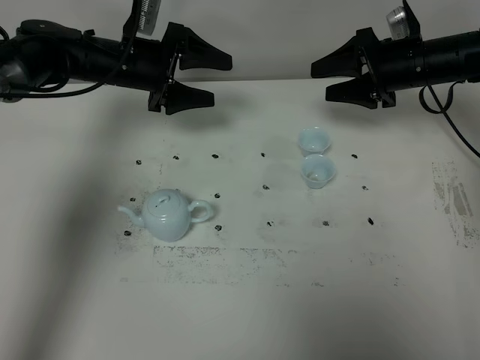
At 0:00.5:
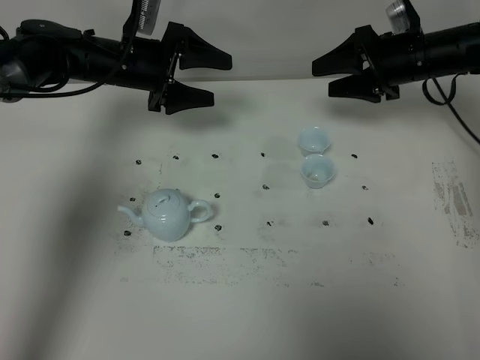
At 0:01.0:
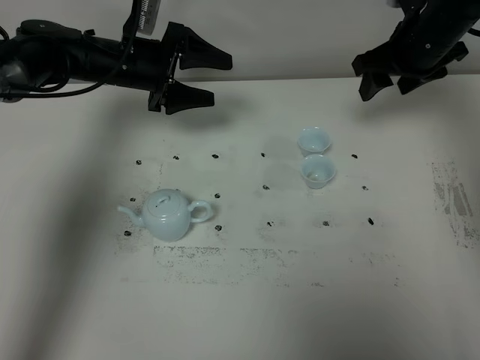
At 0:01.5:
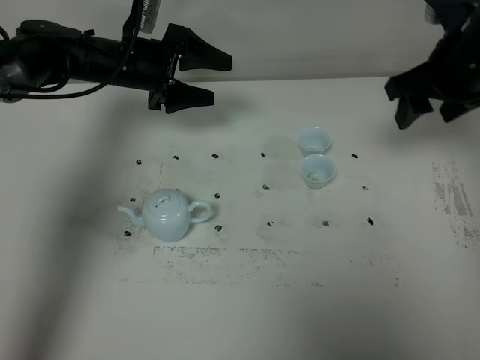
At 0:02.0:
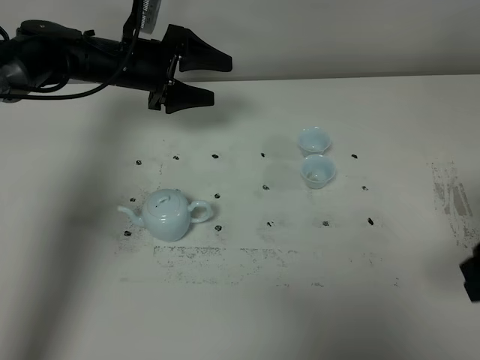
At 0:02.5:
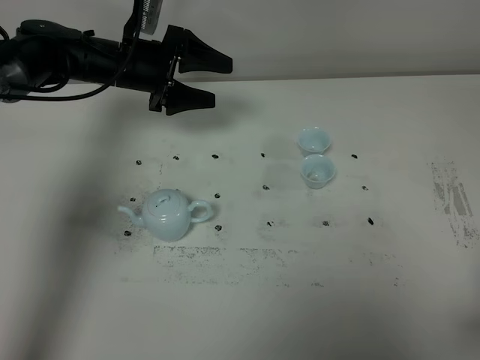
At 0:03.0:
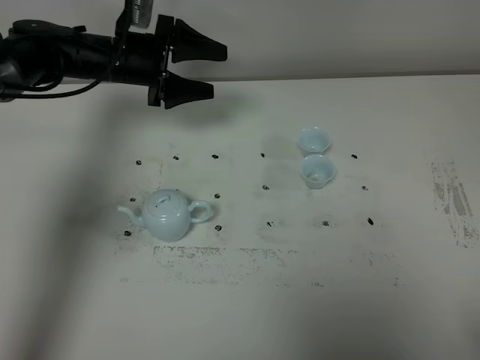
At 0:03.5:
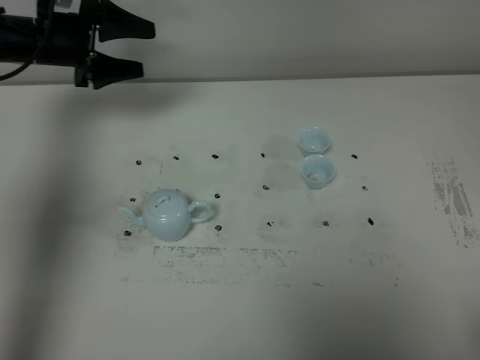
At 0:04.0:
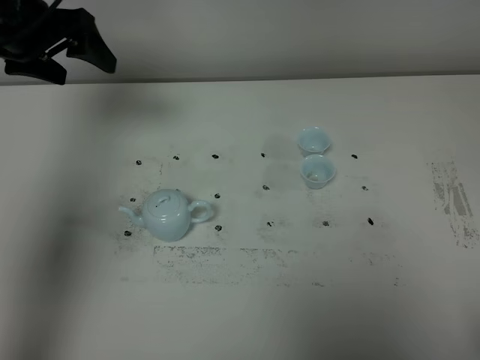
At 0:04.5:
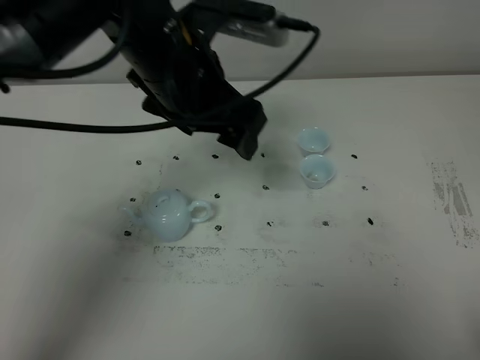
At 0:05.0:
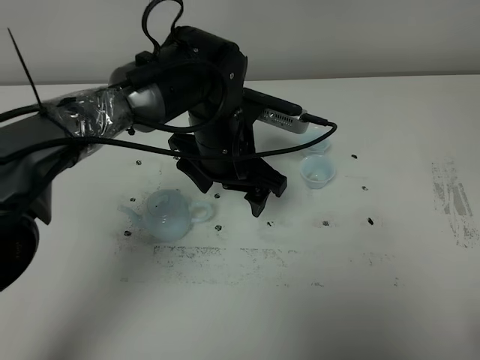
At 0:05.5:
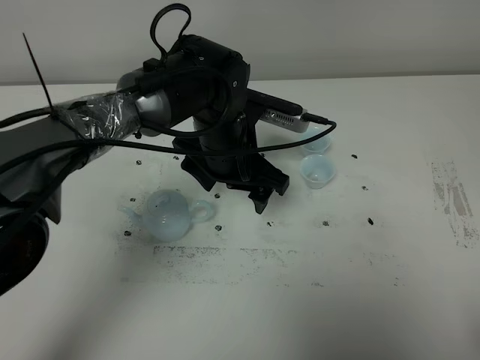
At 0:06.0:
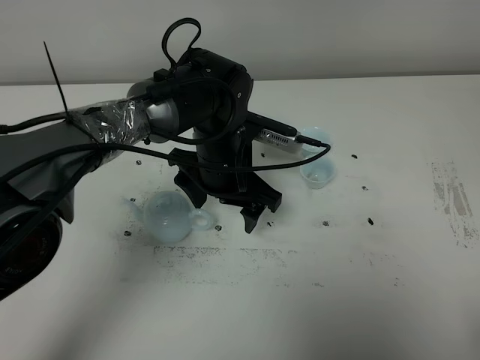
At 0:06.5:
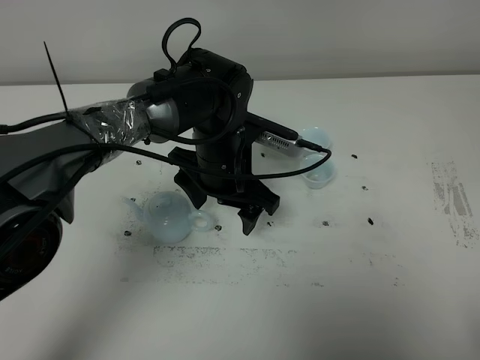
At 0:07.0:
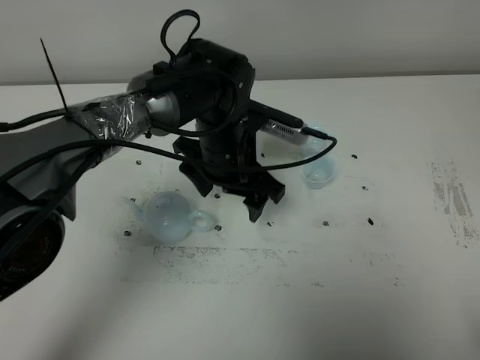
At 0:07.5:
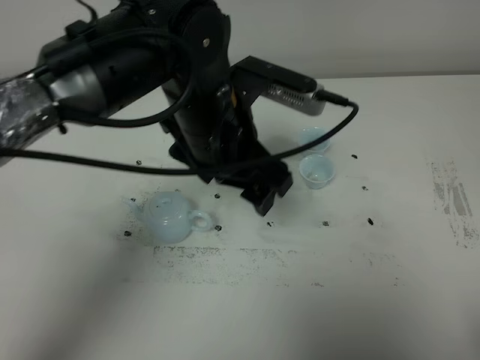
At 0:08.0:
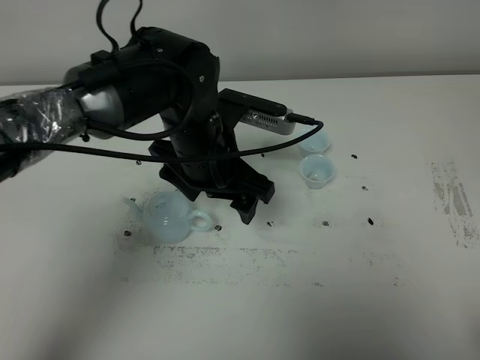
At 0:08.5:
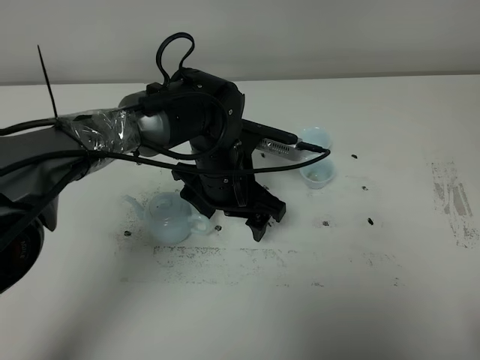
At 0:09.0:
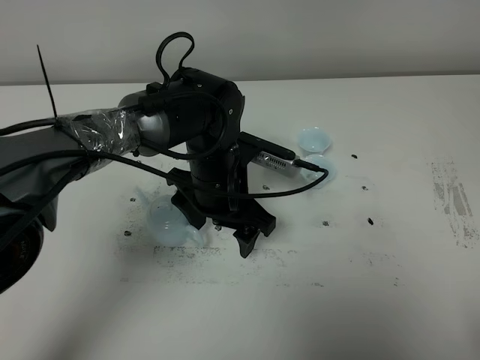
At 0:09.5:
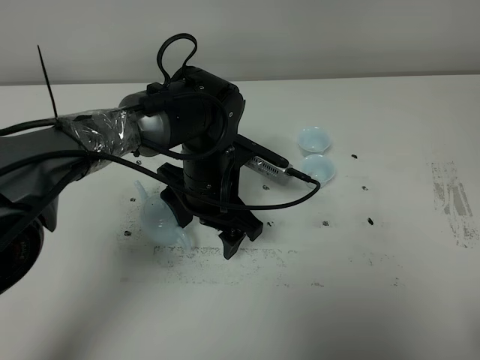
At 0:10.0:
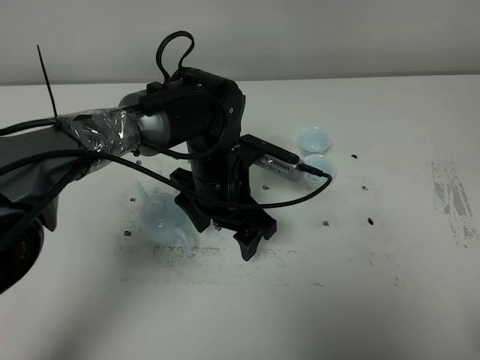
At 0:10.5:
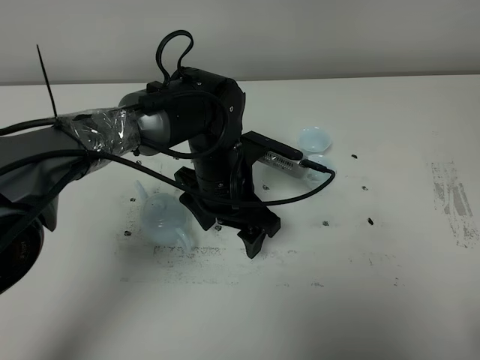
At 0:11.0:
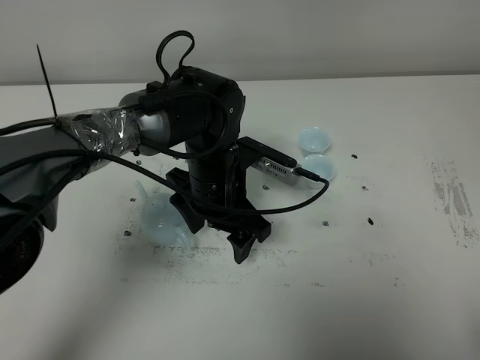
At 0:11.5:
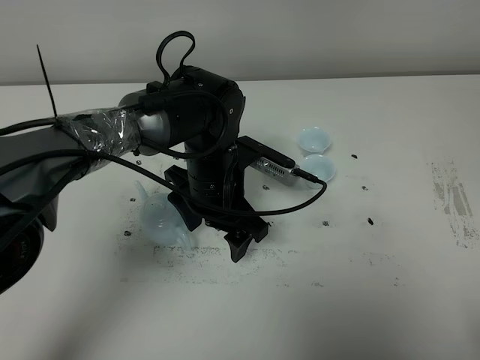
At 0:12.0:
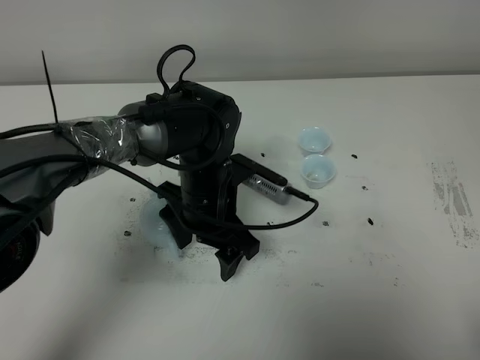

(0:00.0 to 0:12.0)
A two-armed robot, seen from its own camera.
Task of the whole recording: grasp the blue porcelain teapot and pour the tea into the two blue porcelain teacups one by one, put the blue porcelain teapot back in its original place.
0:00.0 - 0:02.0: The right gripper travels backward by about 30 cm.
0:02.0 - 0:04.0: The right gripper travels backward by about 20 cm. Meanwhile the left gripper travels upward, to the left and backward by roughly 15 cm.
0:04.0 - 0:06.0: The left gripper shifts approximately 30 cm to the right and downward.
0:06.0 - 0:08.0: The left gripper is displaced upward by approximately 5 cm.
0:08.0 - 0:10.0: The left gripper shifts roughly 5 cm downward.
0:10.0 - 0:12.0: The grippers make only small movements.

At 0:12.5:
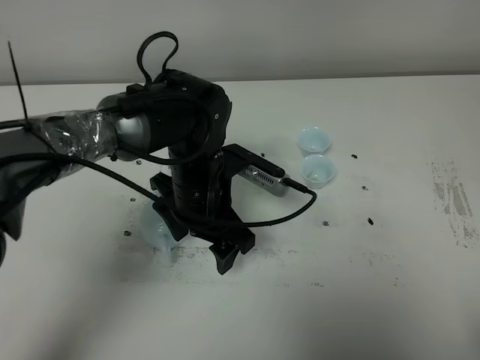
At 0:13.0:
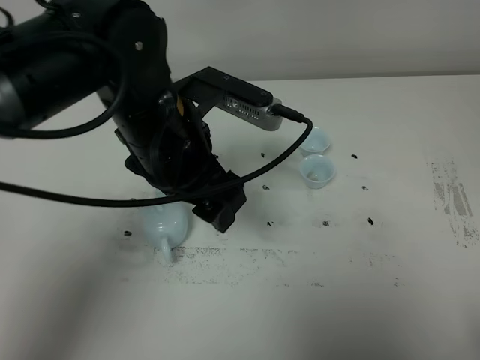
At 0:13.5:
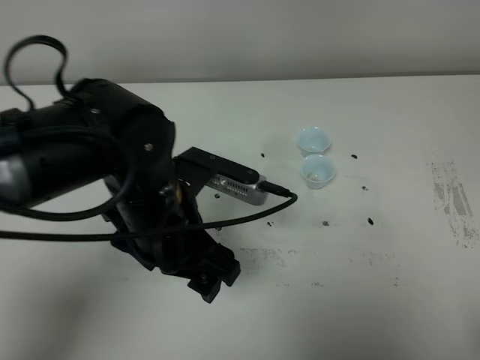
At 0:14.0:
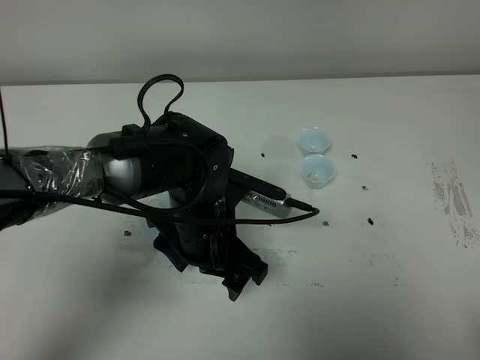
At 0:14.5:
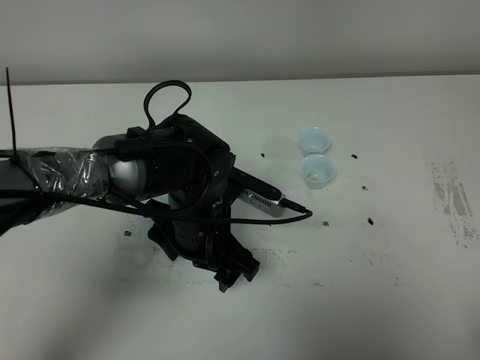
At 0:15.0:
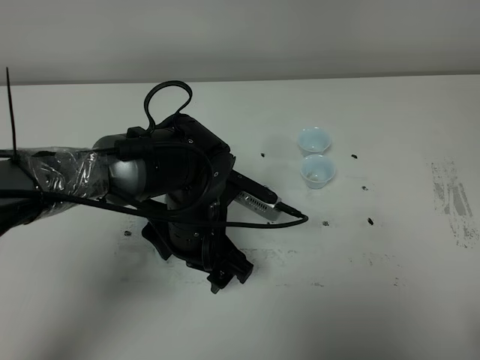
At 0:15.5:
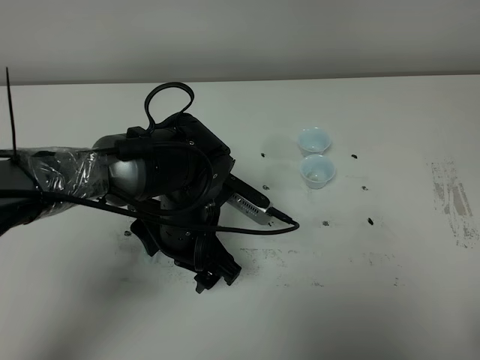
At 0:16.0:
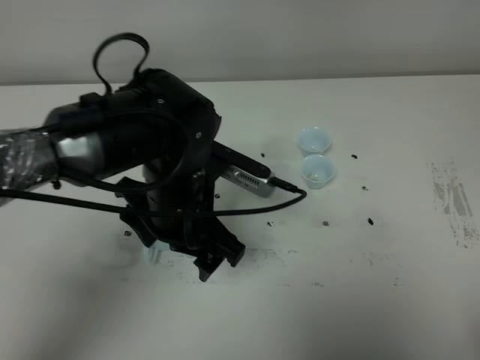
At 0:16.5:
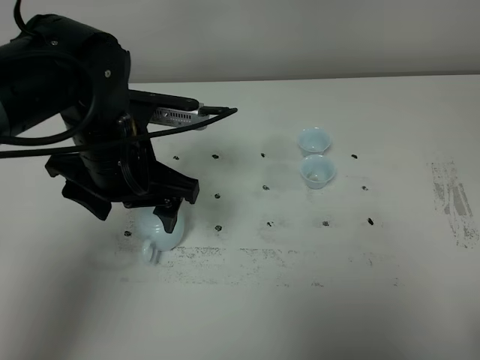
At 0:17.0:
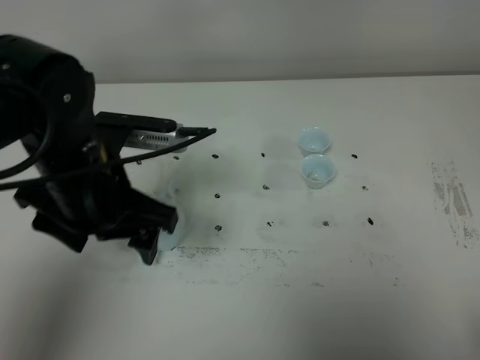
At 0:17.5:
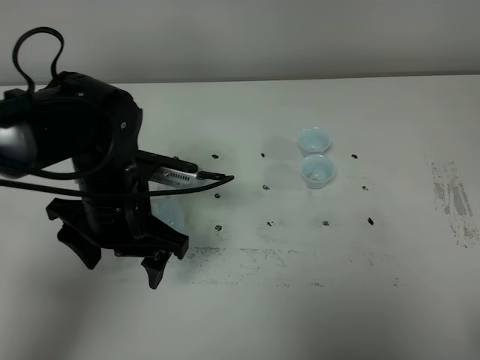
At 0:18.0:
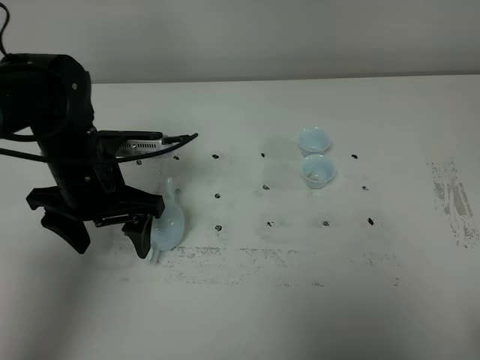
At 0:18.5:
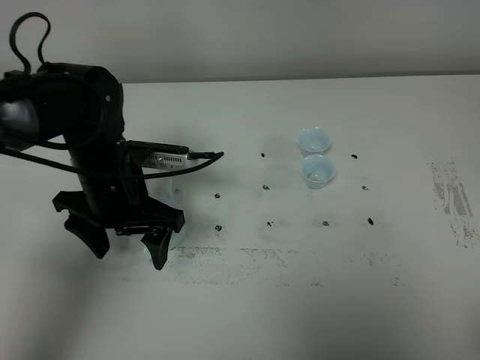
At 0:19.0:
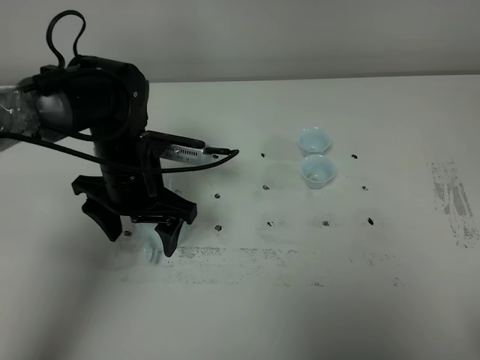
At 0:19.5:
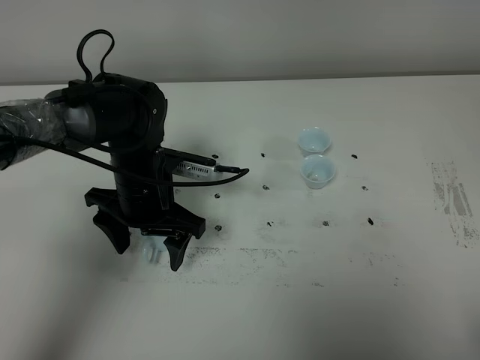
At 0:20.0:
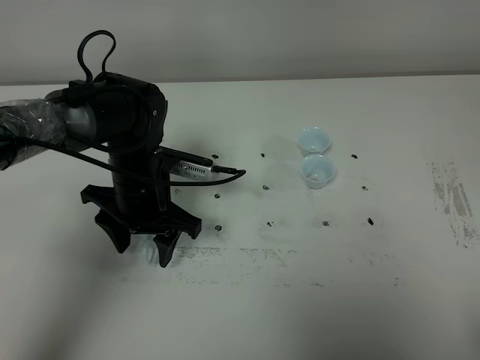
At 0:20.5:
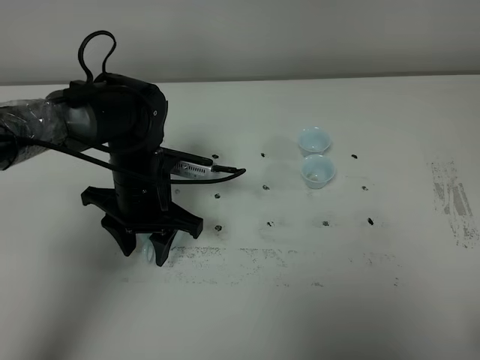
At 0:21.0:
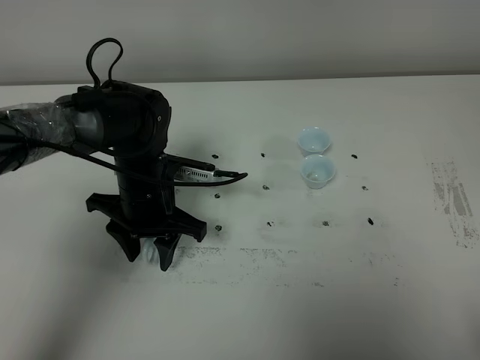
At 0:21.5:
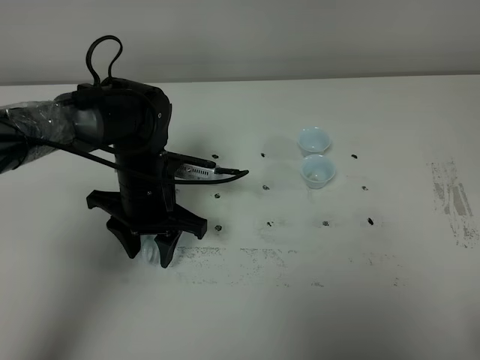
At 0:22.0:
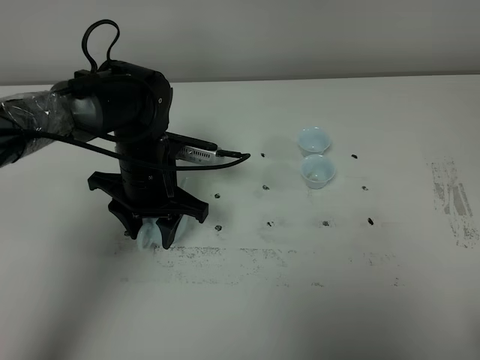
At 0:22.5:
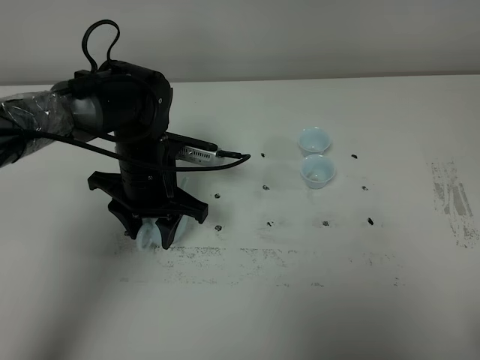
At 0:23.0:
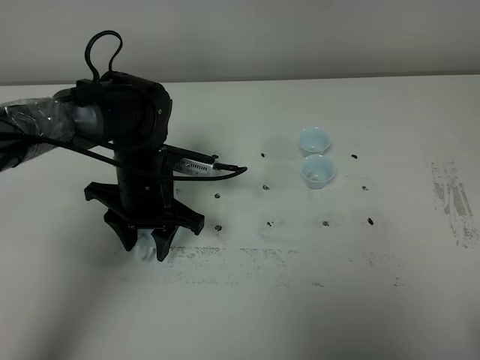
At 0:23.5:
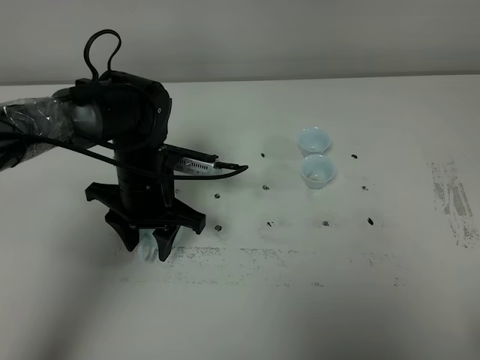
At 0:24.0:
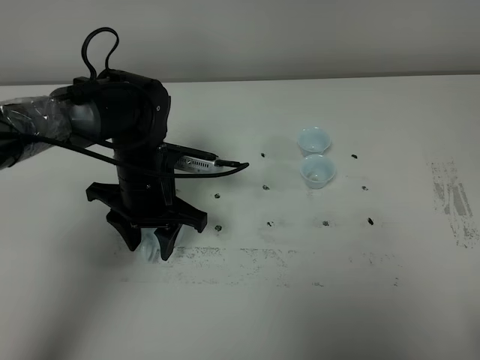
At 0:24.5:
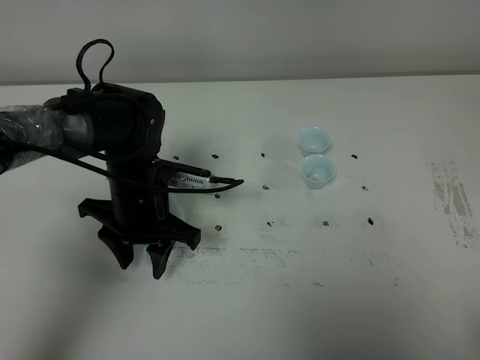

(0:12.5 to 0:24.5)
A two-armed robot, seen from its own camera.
Task of the whole recording: grasp the blue porcelain teapot and pour the tea into the two blue porcelain teacups one by one, put the blue porcelain teapot back in its original place.
0:12.5 - 0:14.5: The left gripper moves some 10 cm upward and comes back.
0:14.5 - 0:16.5: The left gripper goes roughly 15 cm upward and to the left.
0:16.5 - 0:18.5: The left gripper goes approximately 10 cm downward.
0:18.5 - 0:20.5: The left gripper closes.
0:20.5 - 0:24.5: The grippers move only a little.

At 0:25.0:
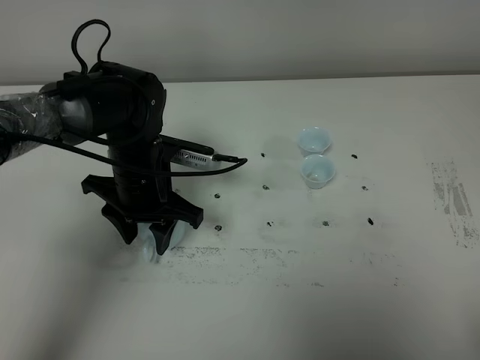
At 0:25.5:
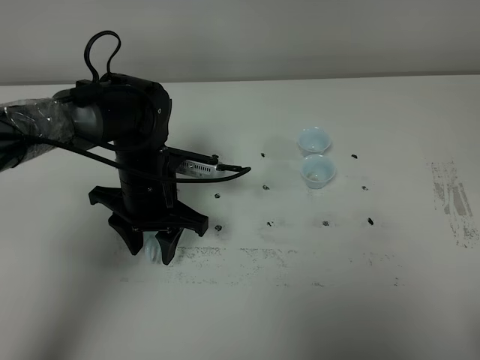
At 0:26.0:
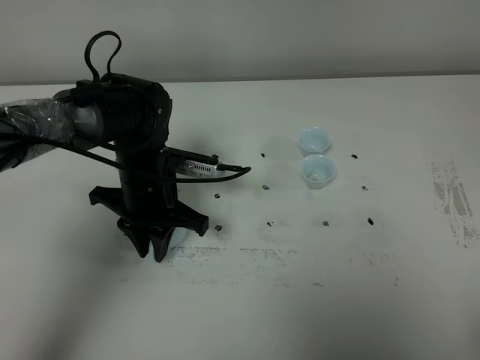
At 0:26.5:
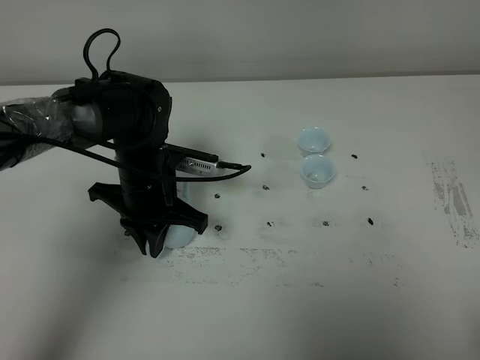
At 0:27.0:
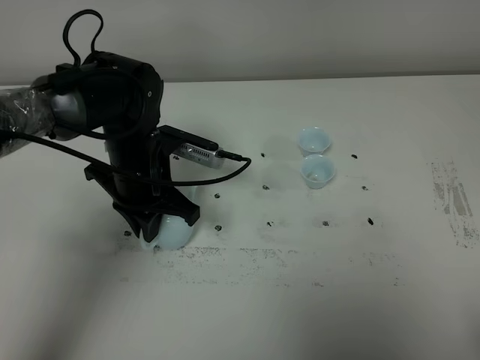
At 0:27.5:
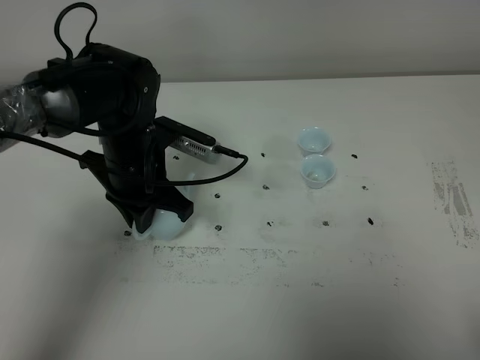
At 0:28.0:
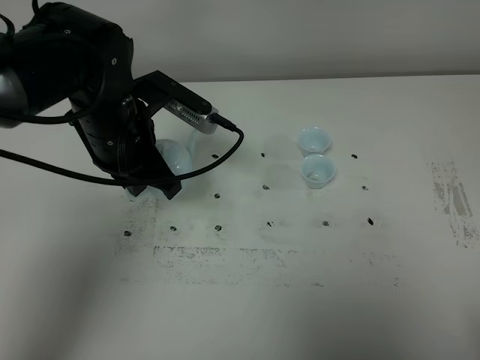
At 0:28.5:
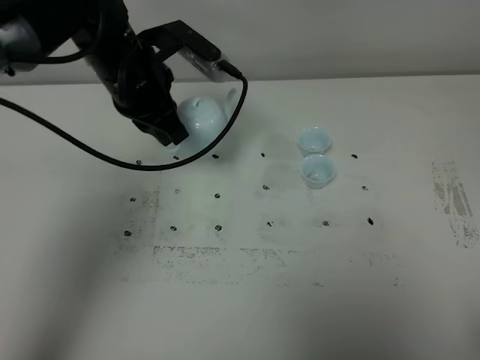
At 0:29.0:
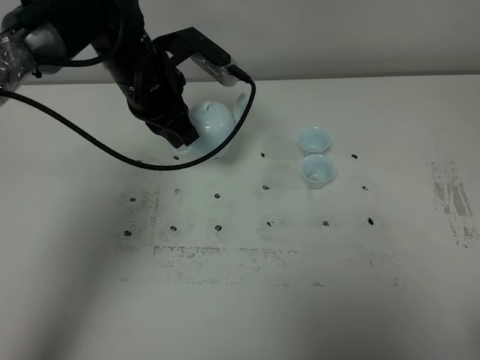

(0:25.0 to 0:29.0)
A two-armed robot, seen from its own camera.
Task of the whole recording: grasp the blue porcelain teapot and pour the tea into the two blue porcelain teacups one by one, put the blue porcelain teapot back in its original place.
Step, 0:25.0 - 0:27.5: Pick up the teapot with the left gripper.
0:25.0 - 0:27.0: The left gripper closes.
0:27.0 - 0:29.0: The left gripper heads forward and upward, covering some 10 cm.
